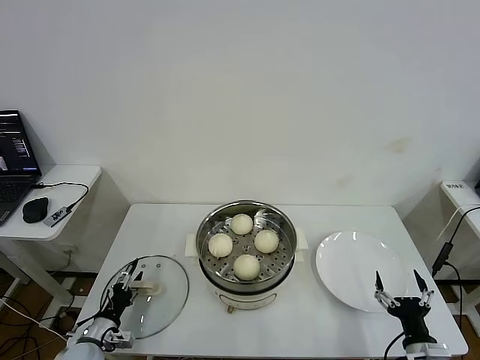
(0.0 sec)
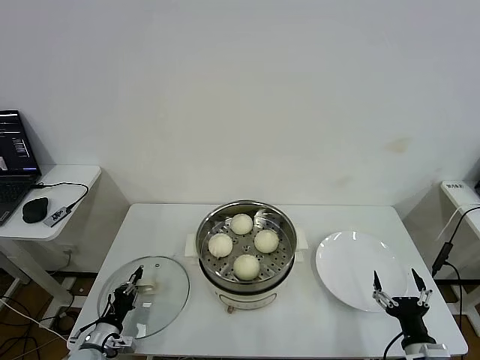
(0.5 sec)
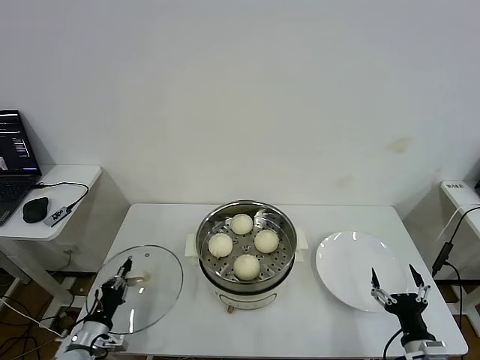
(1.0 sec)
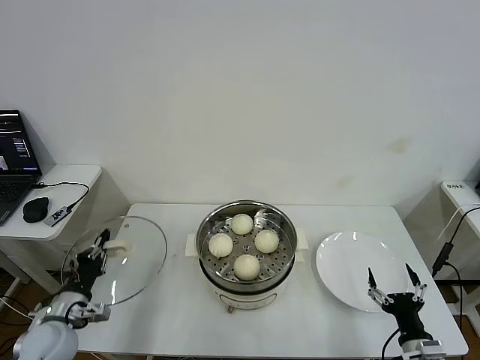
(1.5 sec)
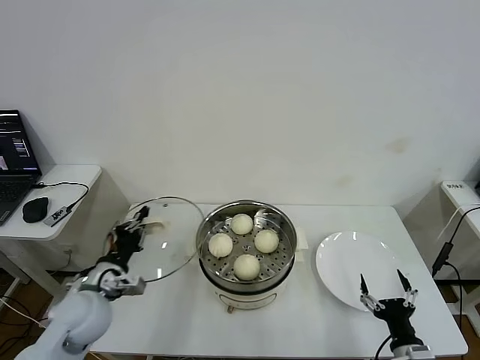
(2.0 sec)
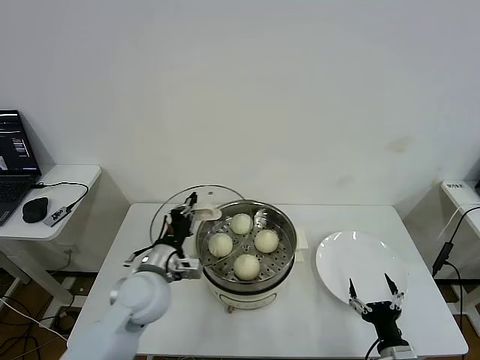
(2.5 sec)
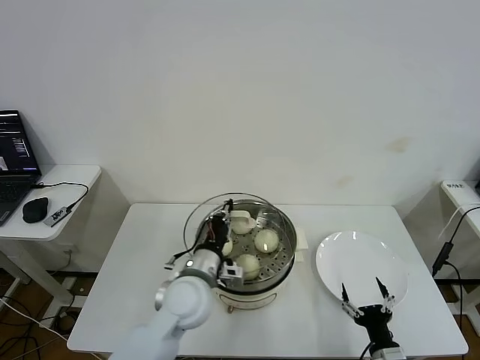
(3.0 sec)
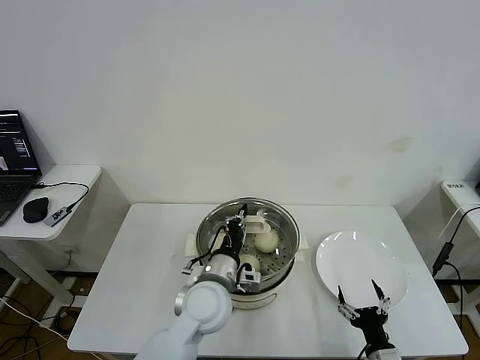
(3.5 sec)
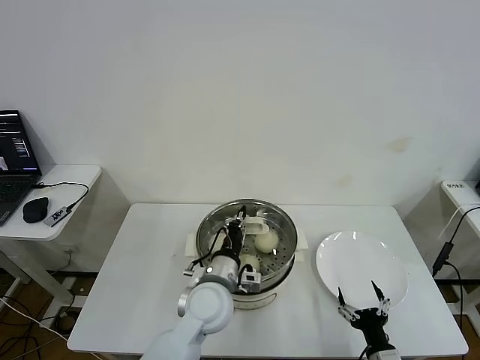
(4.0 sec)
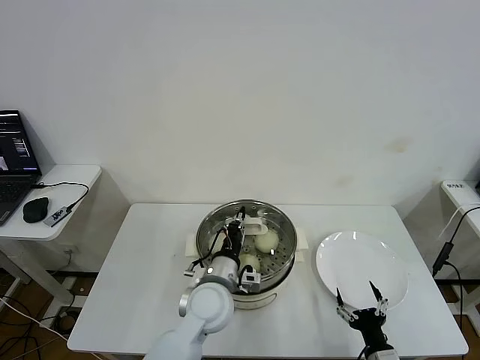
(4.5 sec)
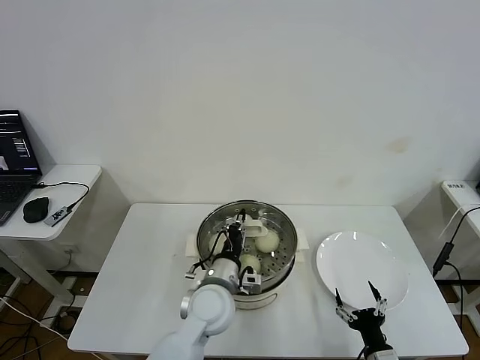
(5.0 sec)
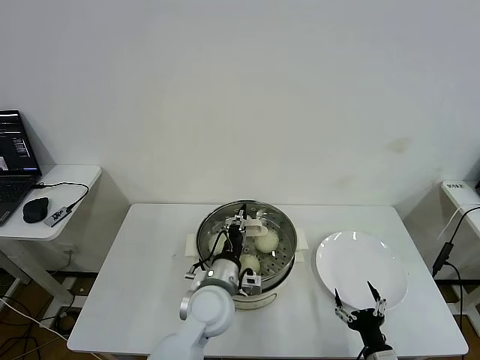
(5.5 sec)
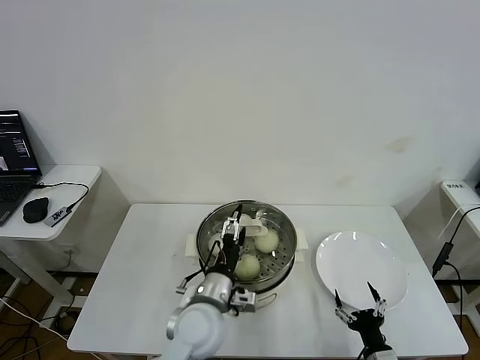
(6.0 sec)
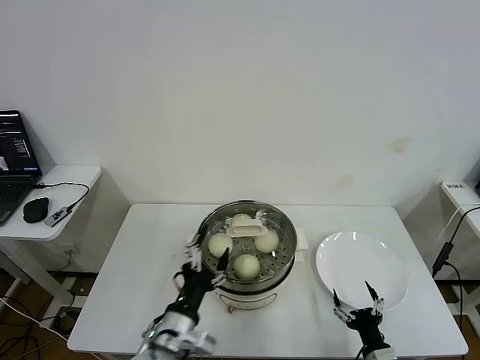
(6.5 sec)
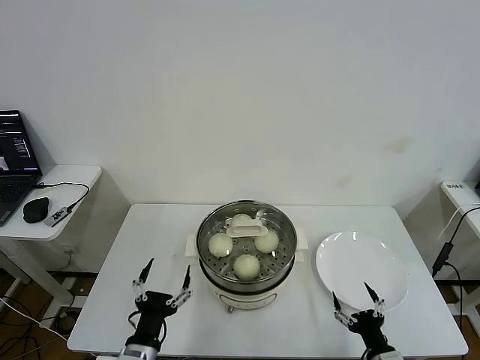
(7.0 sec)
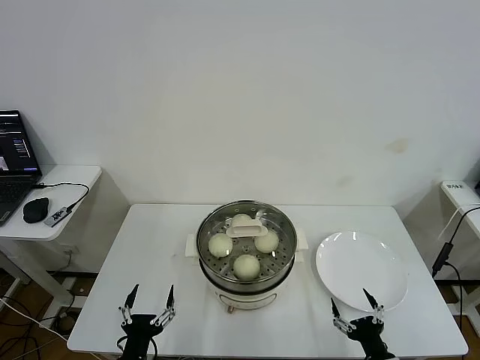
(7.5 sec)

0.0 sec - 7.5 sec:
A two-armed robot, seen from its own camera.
Task of the whole recording: take steamed baozi put them in steamer then cover it.
Step, 1.0 sec - 6.0 sec: Place the pot lid on the steamer with left gripper.
0.0 sec - 2.0 sec: The left gripper is displaced upward by approximately 20 cm, and closes its fingers.
2.0 sec - 4.0 sec: The right gripper changes place by about 5 cm, while the left gripper shifts approximately 25 cm to the right.
4.0 sec - 5.5 sec: The grippers stay close to where they were, moving slightly.
5.5 sec - 7.5 sec: The left gripper travels backward, to the left and downward by some 25 cm, and opens up.
